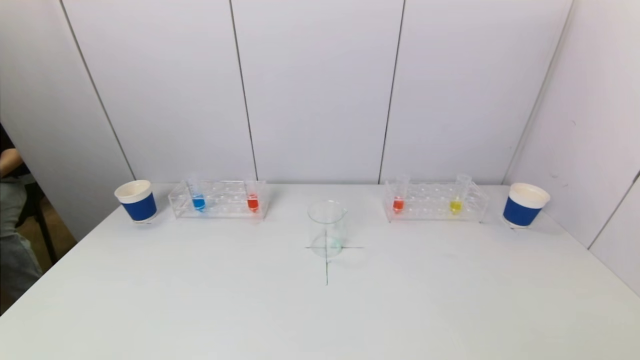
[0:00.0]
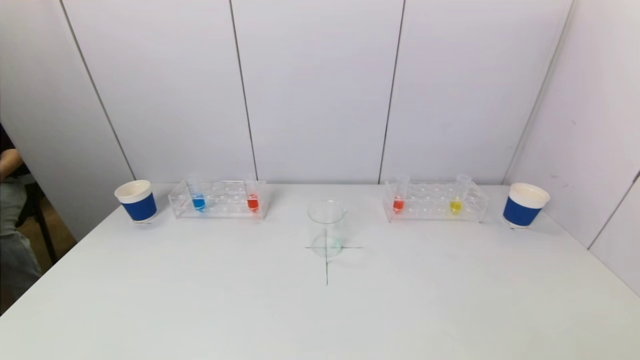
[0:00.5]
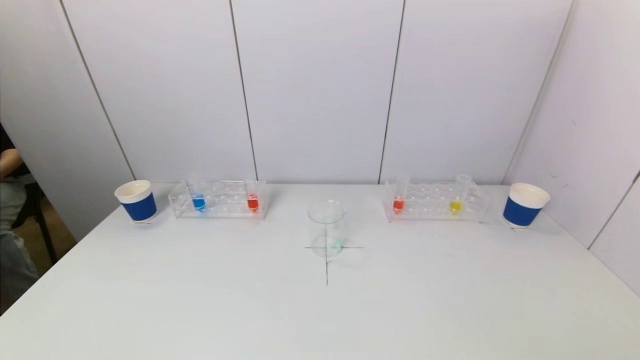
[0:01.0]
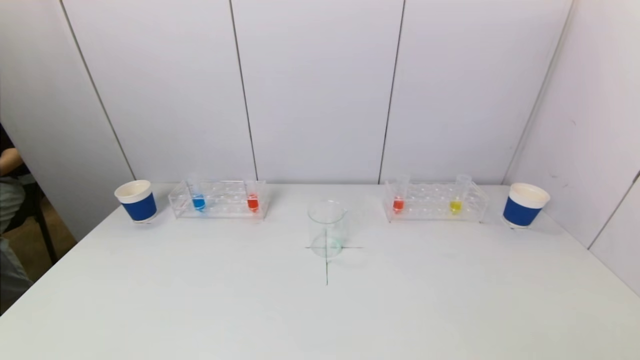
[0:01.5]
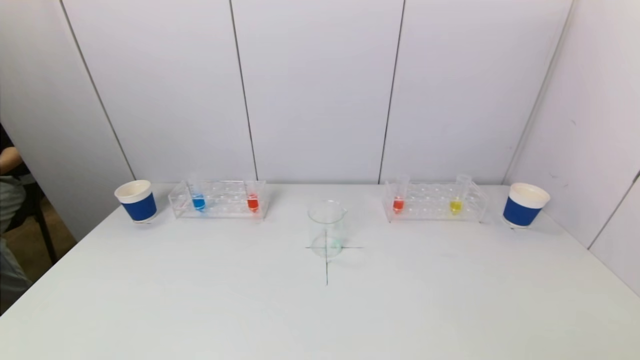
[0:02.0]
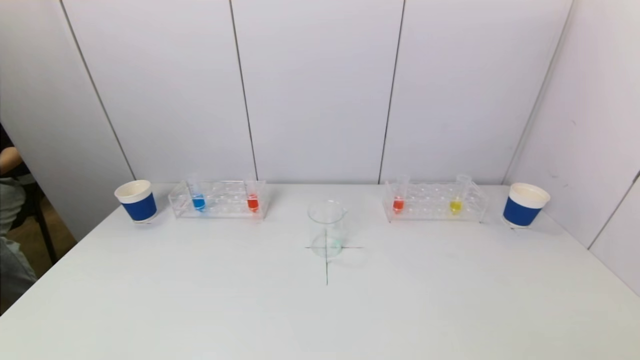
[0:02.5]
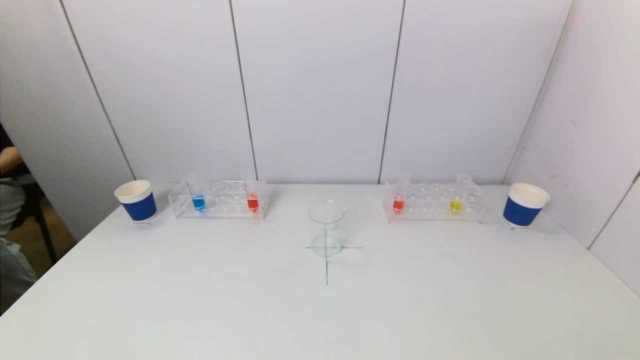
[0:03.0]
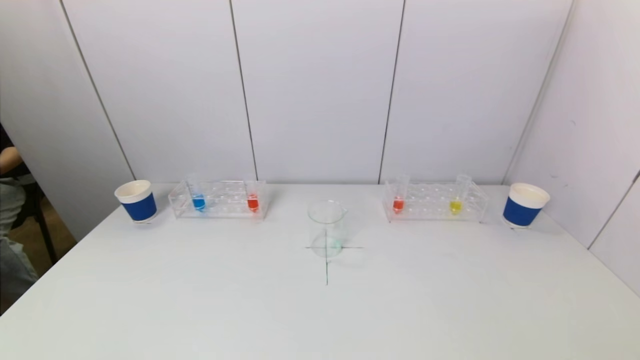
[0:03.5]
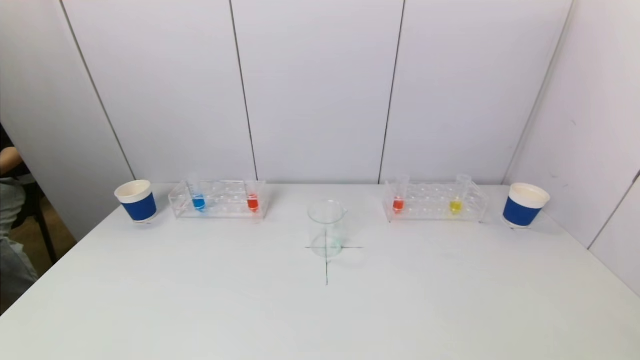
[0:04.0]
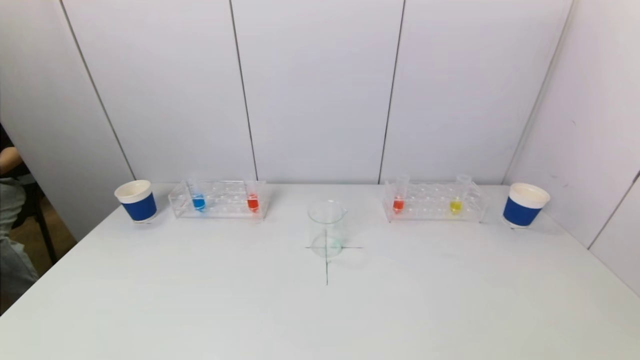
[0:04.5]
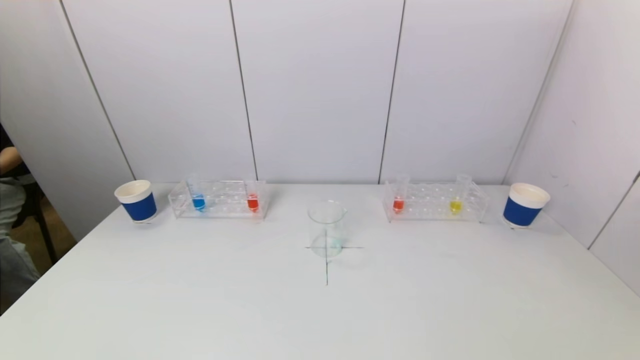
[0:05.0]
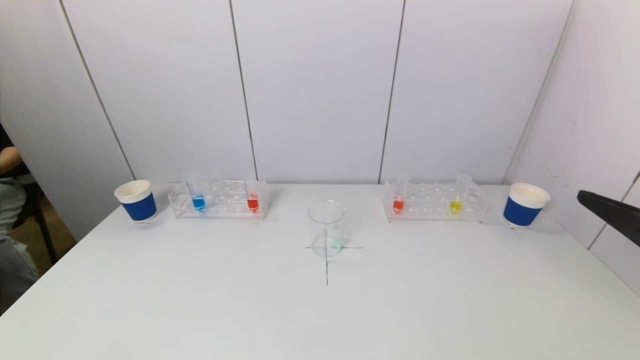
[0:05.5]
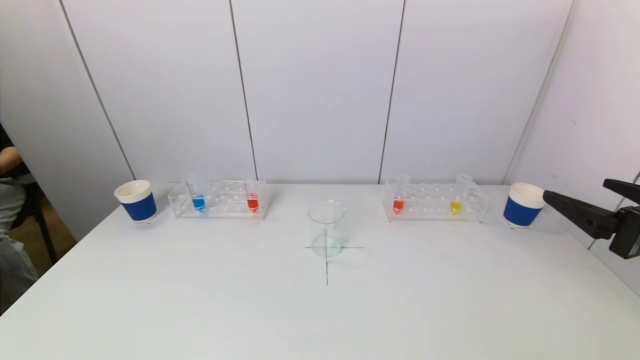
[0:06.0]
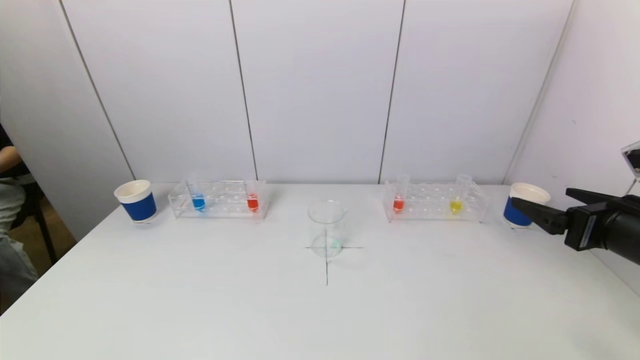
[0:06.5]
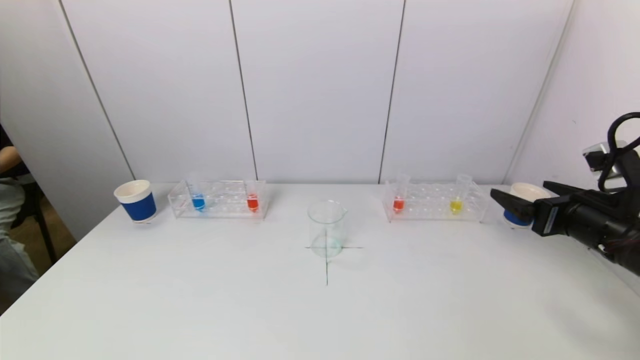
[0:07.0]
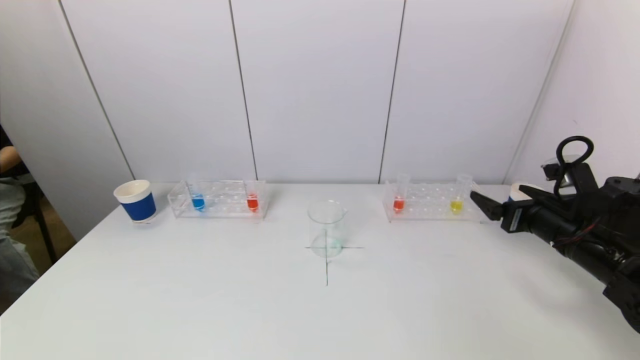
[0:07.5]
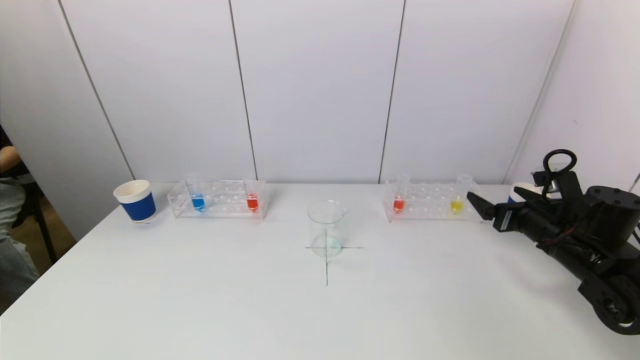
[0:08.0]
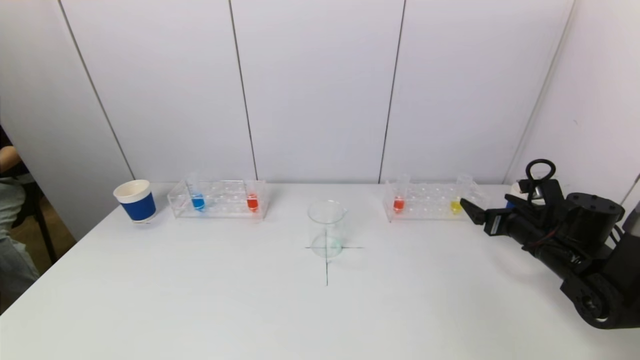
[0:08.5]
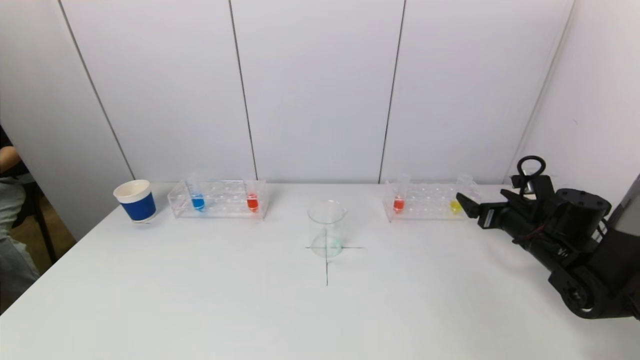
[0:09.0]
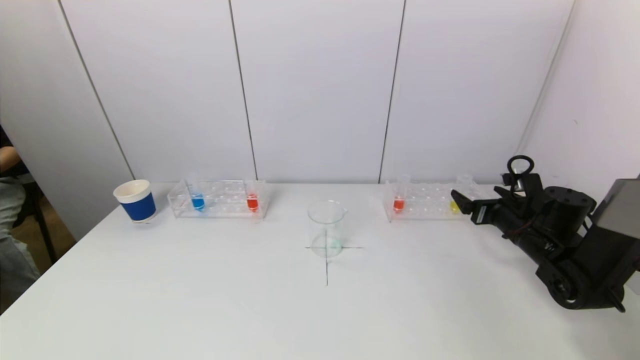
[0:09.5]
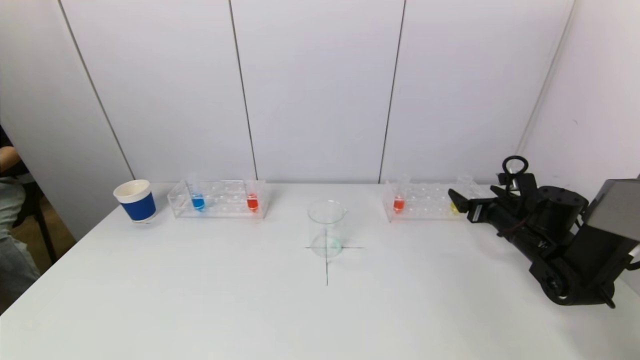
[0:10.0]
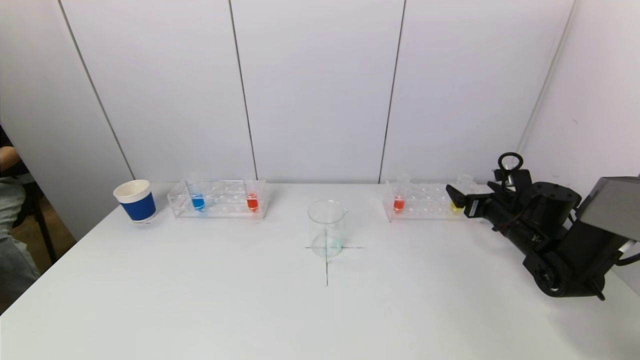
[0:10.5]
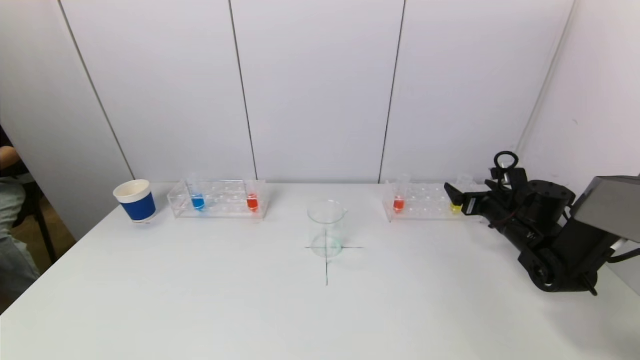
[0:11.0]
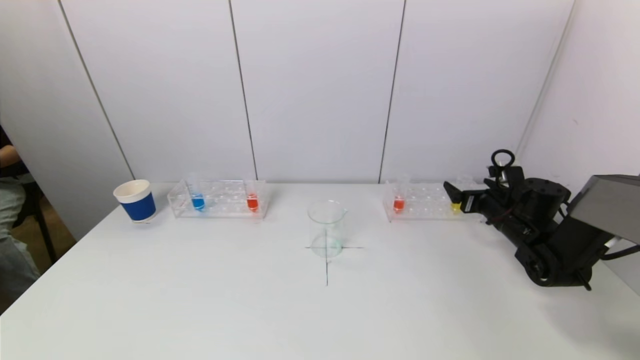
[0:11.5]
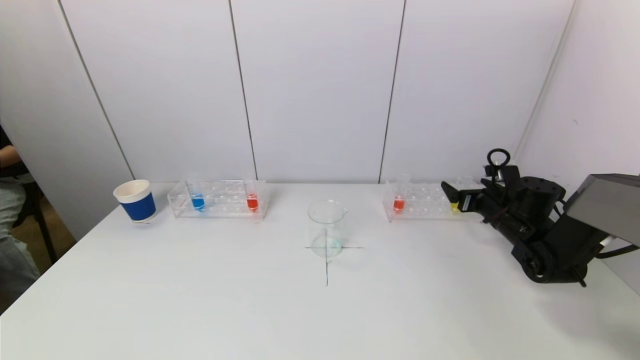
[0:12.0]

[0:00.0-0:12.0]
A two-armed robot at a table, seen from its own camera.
Task of the whole recording: pick up a test tube with pigment on left test tube rack and a test tube with pigment on right test tube rack by grippers and pour them into the beaker.
0:00.0 to 0:02.0: The two grippers keep their place.
0:04.0 to 0:06.0: The right gripper shifts some 20 cm forward.
0:06.0 to 0:08.0: The right gripper is displaced forward and downward by some 20 cm.
0:08.0 to 0:10.0: The right gripper travels forward by some 5 cm.
0:10.0 to 0:12.0: The grippers make only small movements.

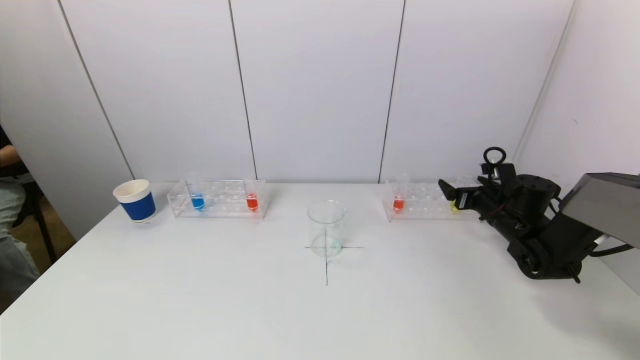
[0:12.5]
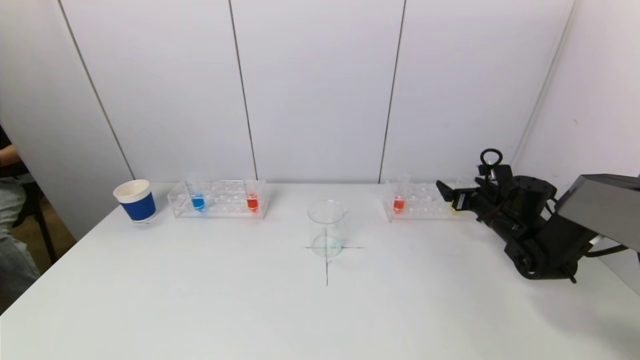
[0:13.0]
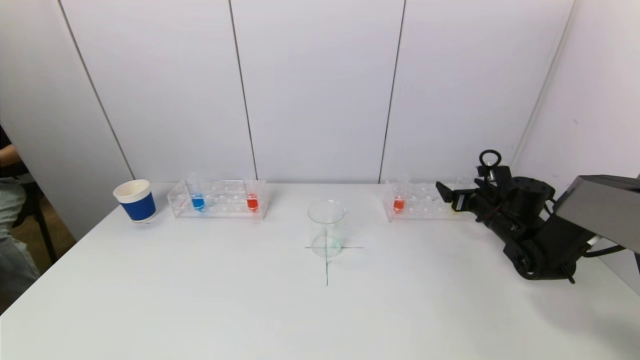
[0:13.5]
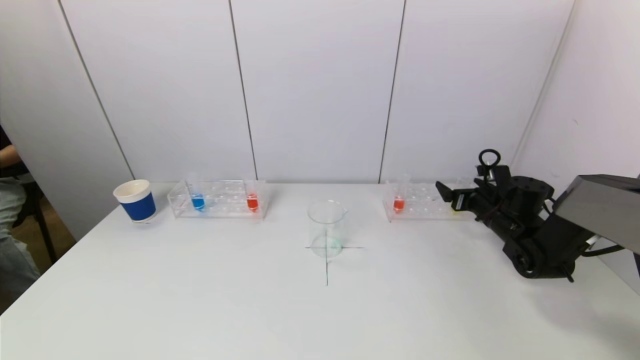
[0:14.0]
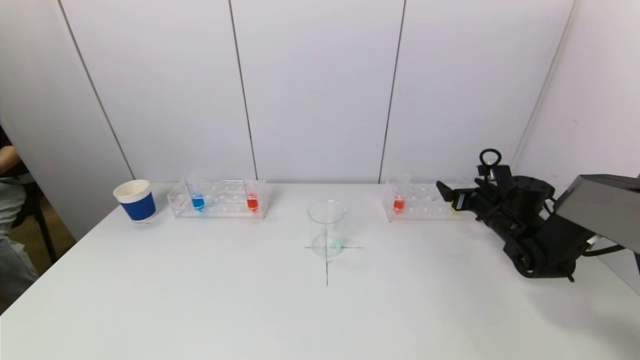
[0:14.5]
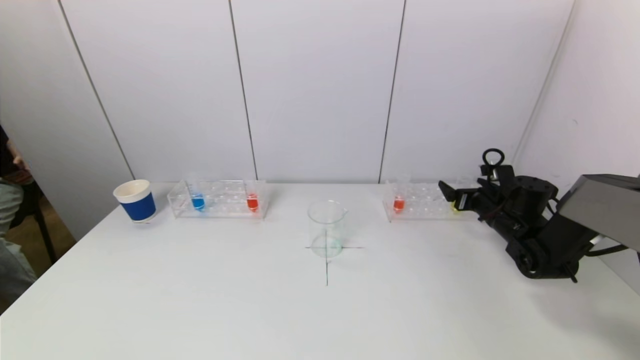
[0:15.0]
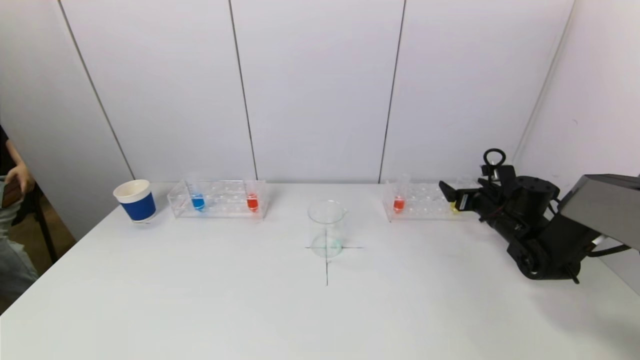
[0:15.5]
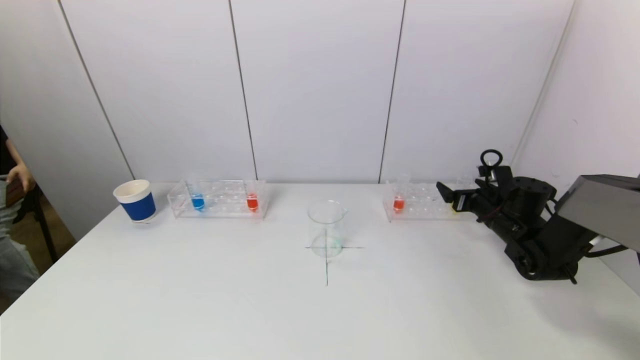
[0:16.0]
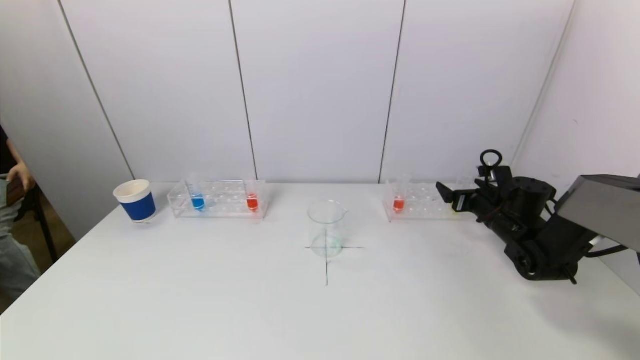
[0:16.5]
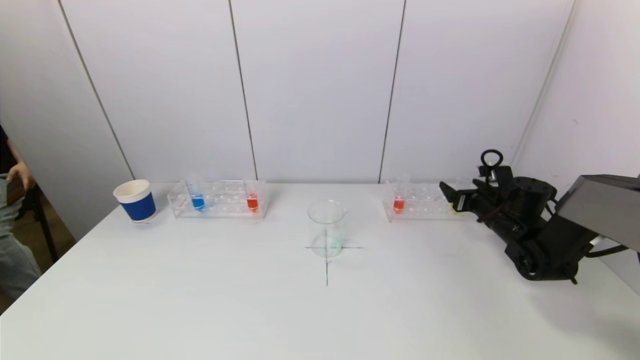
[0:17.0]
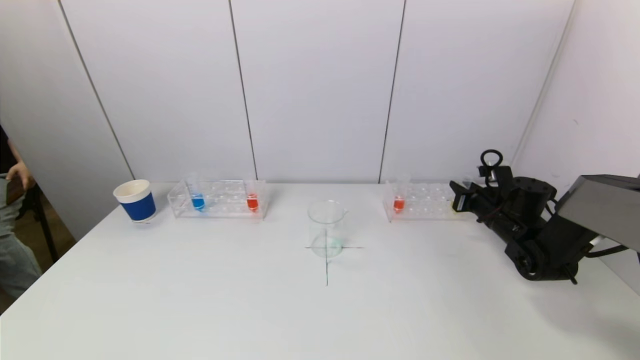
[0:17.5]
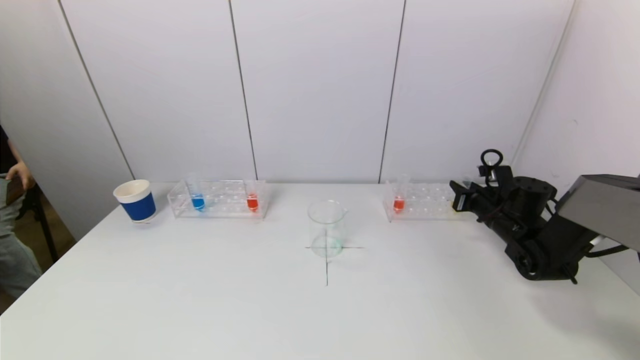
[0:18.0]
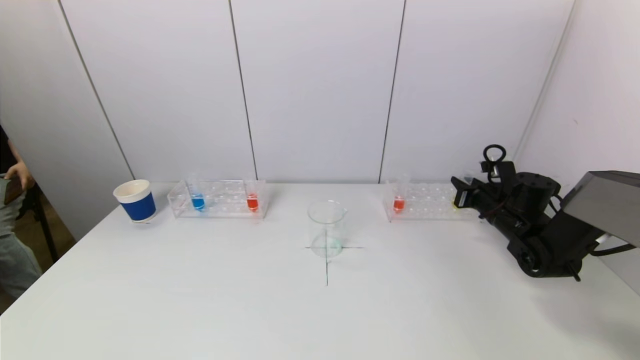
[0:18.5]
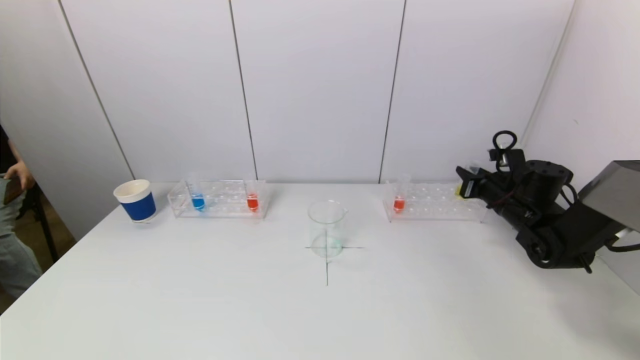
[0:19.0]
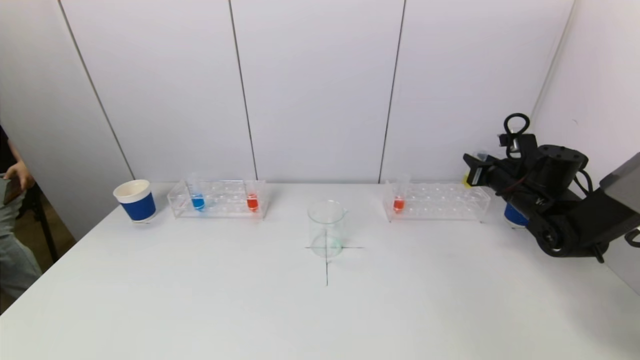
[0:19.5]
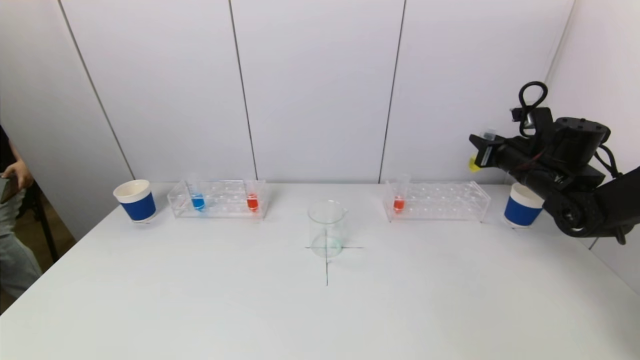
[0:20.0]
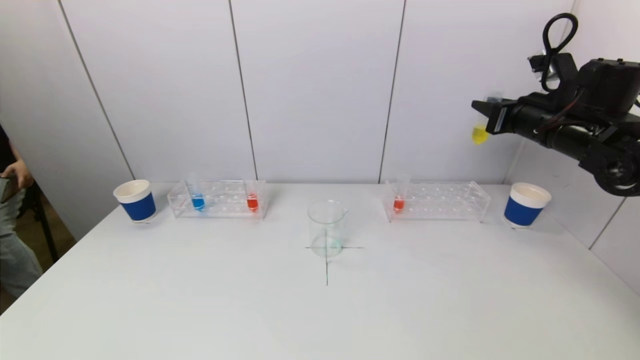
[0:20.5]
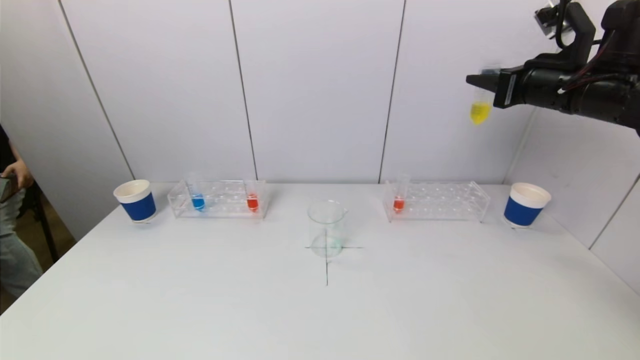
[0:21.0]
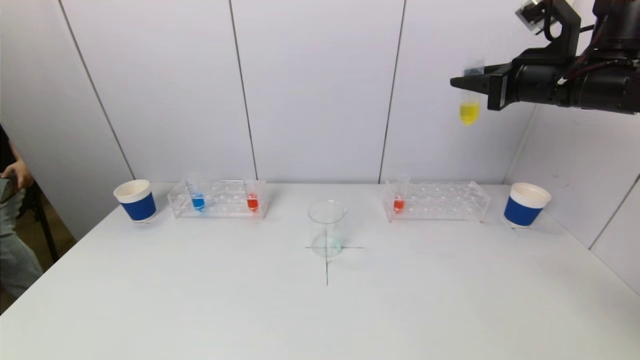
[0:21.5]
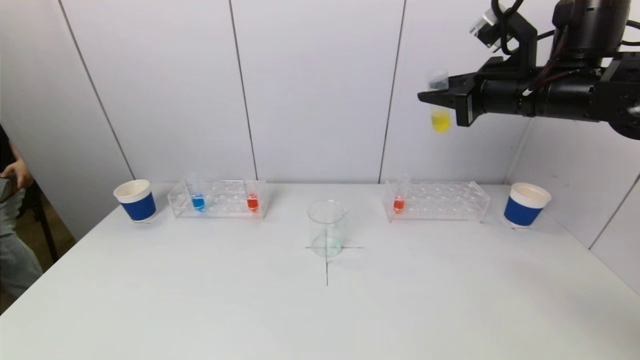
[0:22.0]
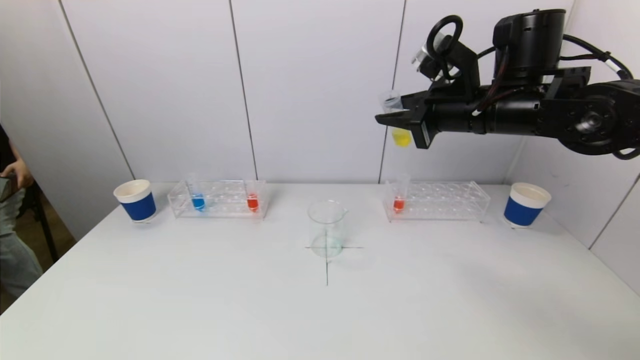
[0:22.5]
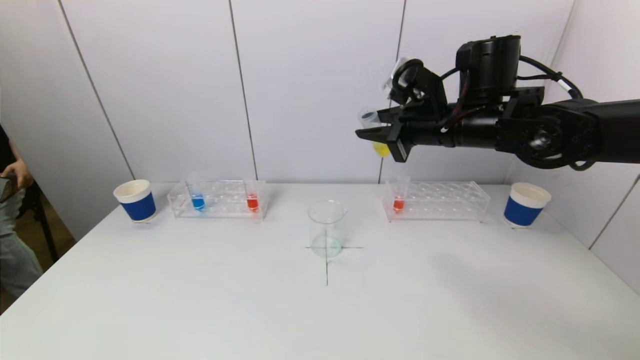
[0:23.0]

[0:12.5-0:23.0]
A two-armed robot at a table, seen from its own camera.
Task of the whole recording: pick up a test tube with pigment on left test tube rack and a test tube with pigment on right test tube rack by grippers and pour them into the beaker.
Step, 0:12.5 to 0:17.5: Grasp the yellow reagent with the right gripper.
0:12.5 to 0:16.5: The two grippers keep their place.
0:16.5 to 0:19.0: The right gripper closes its fingers.
0:19.0 to 0:21.0: The right gripper is displaced upward by some 25 cm.
0:21.0 to 0:23.0: The right gripper moves to the left, approximately 15 cm.
